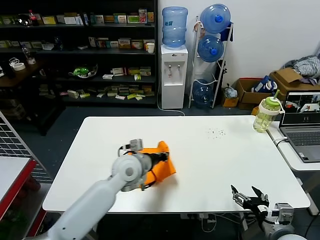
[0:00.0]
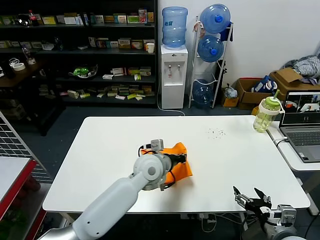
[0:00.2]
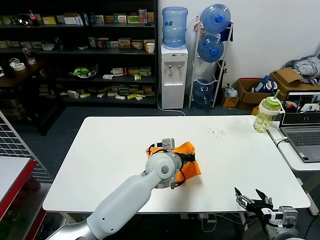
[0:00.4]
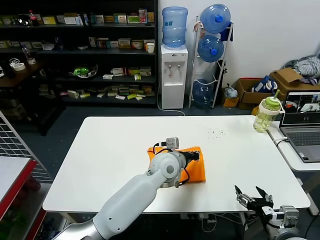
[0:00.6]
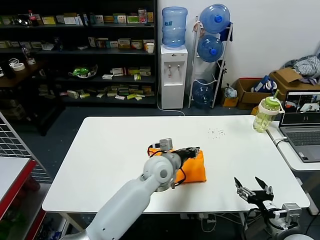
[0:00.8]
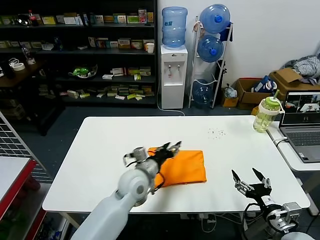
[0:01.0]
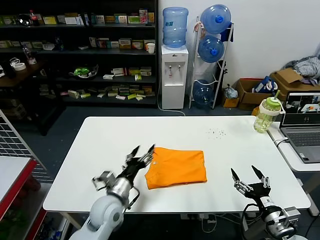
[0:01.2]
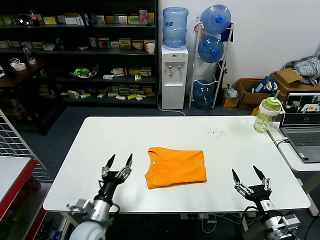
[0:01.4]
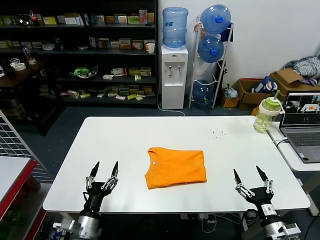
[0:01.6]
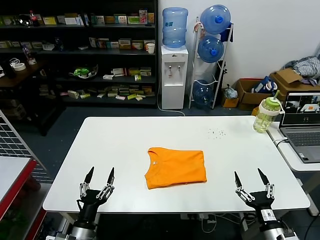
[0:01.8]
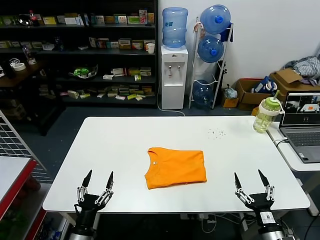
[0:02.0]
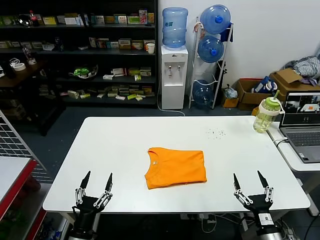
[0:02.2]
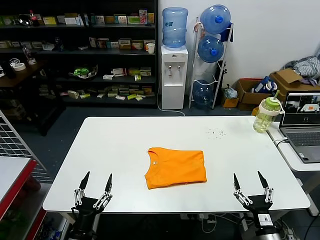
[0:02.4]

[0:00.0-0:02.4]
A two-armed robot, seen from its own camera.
Task of the whole recording: fold and organize the clothes.
0:00.0 to 0:01.2: The left gripper heads downward and backward, covering approximately 10 cm, reaches roughly 15 cm to the right, then returns, and opens up.
0:01.2 to 0:02.4: The left gripper shifts some 25 cm backward, to the left and downward; the right gripper goes approximately 5 cm downward.
